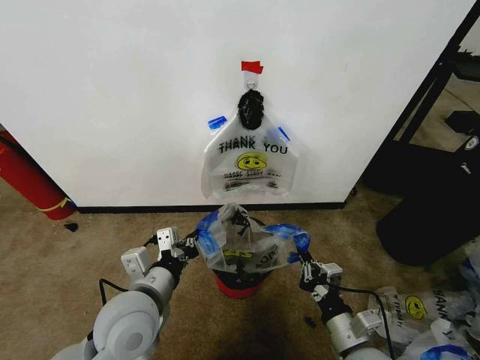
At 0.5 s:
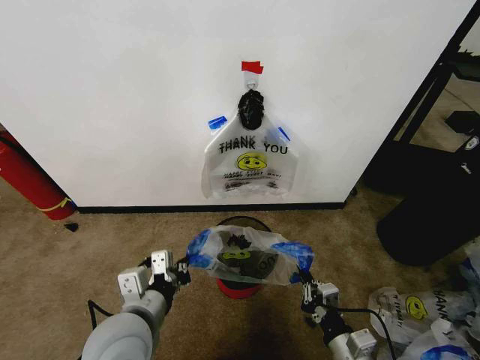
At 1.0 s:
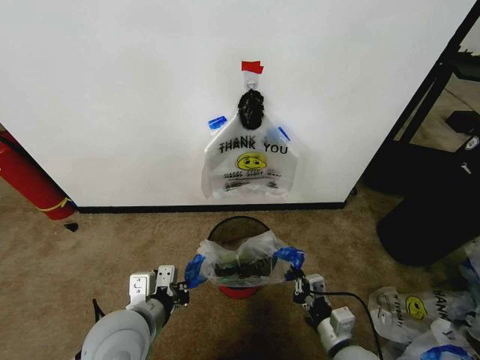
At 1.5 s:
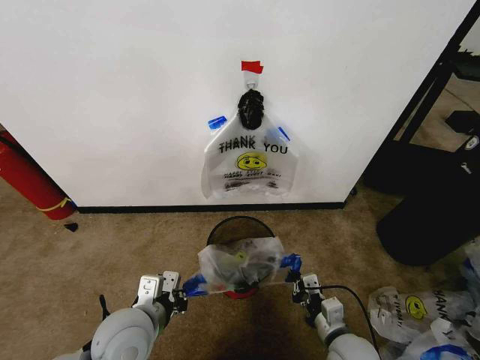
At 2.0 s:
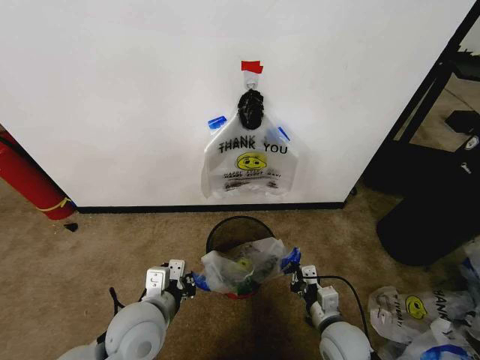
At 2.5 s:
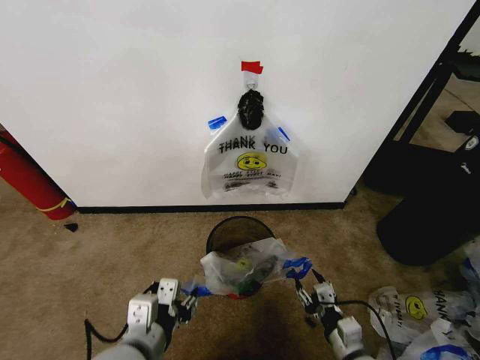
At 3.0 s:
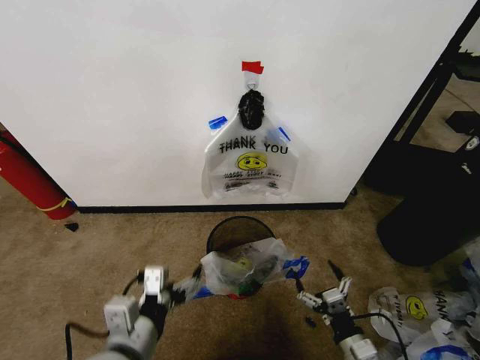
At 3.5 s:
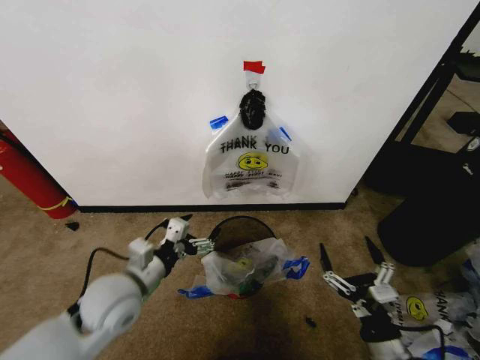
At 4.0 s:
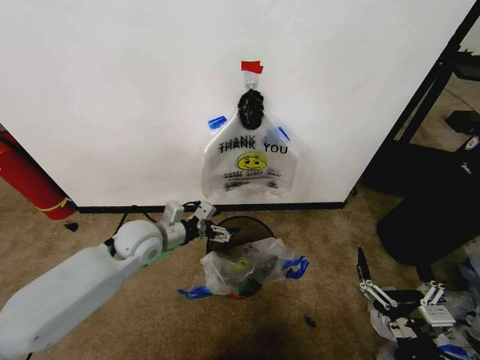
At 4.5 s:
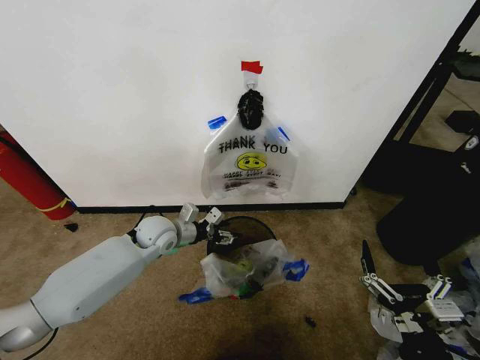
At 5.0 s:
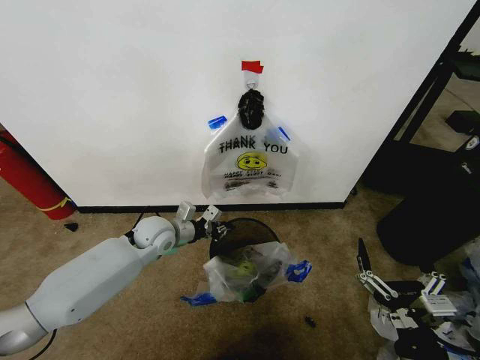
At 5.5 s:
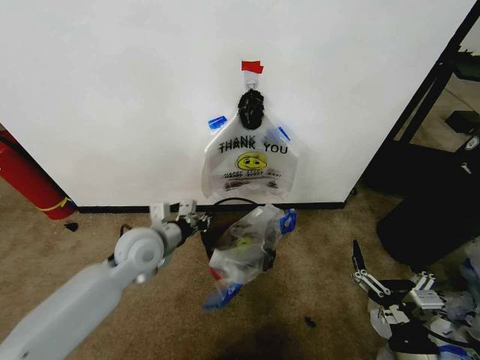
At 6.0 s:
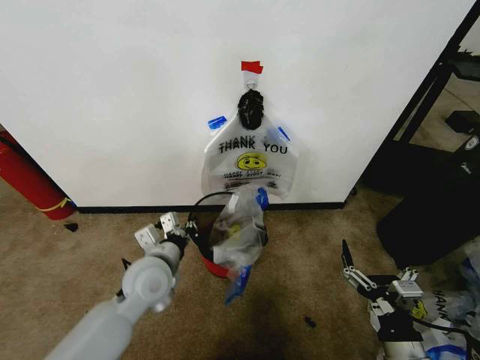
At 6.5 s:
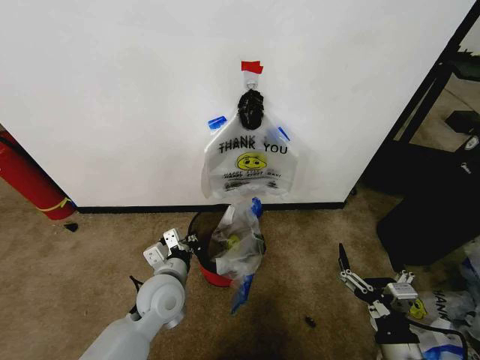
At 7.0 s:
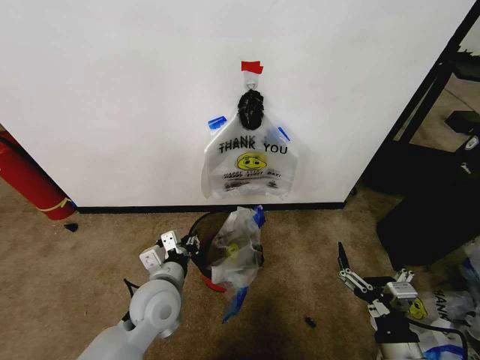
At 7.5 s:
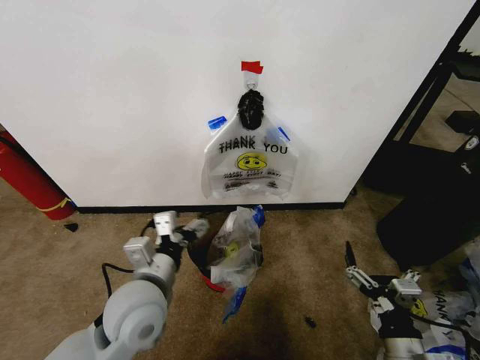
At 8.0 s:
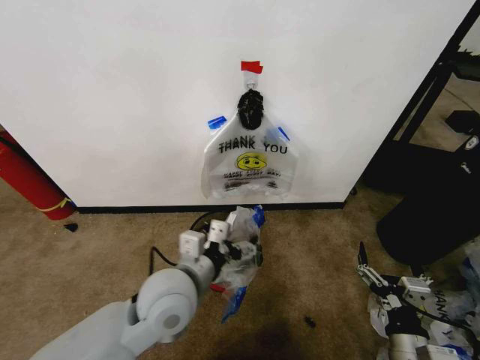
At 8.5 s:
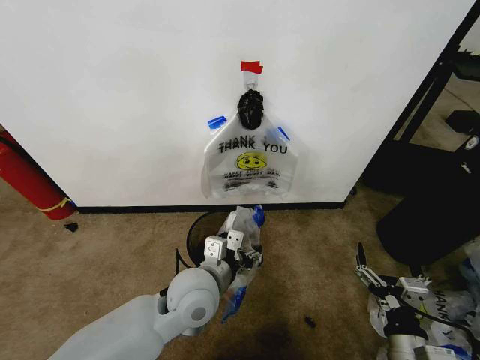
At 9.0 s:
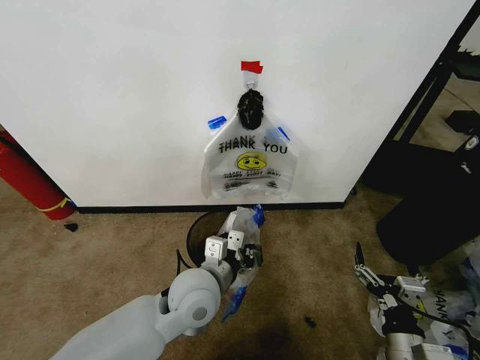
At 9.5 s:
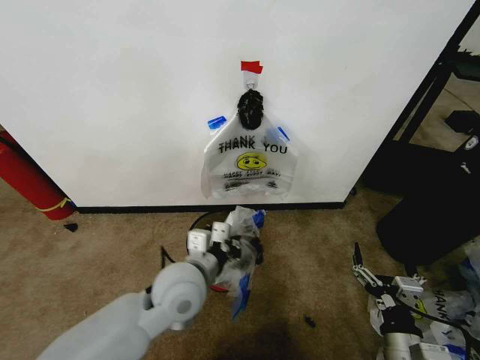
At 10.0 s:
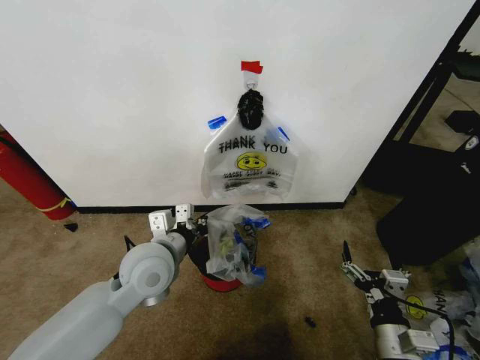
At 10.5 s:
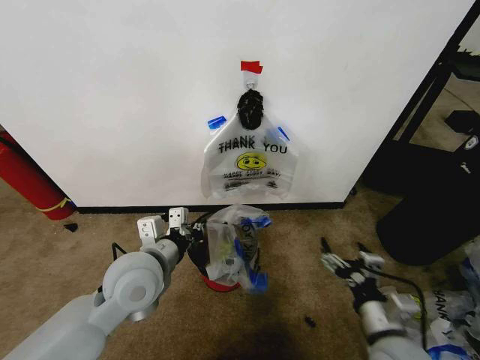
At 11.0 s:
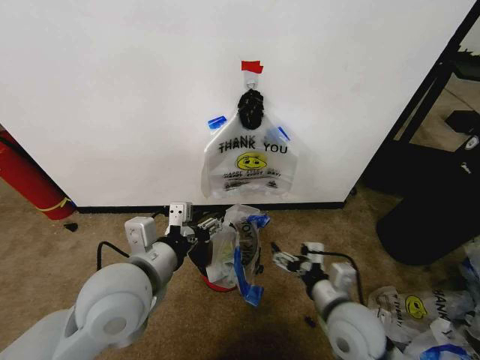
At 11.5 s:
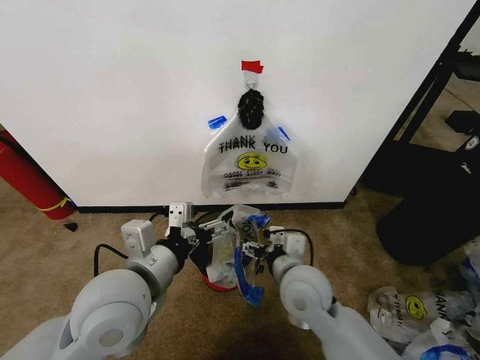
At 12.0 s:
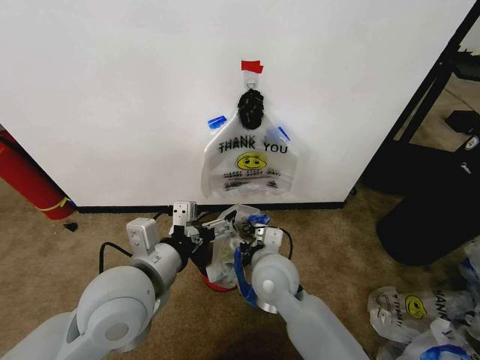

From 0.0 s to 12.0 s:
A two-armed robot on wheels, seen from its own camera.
Task of the whole recording: Pick up the garbage bag from the wall and place it over the trash bin.
From 0.0 s to 2.0 s: The right gripper shifts about 10 cm downward and forward; the left gripper is displaced downward by approximately 5 cm.
From 2.0 s to 4.0 s: The left gripper heads forward, covering roughly 15 cm, and opens its fingers. Meanwhile the right gripper is displaced backward, upward and to the right by roughly 20 cm, and opens up.
From 4.0 s to 6.0 s: The left gripper goes roughly 5 cm backward, and closes its fingers.
From 6.0 s to 8.0 s: The left gripper goes roughly 10 cm to the right, upward and backward, and opens up.
From 8.0 s to 10.0 s: The left gripper shifts some 10 cm forward and to the left, and closes.
From 10.0 s to 12.0 s: The left gripper goes some 10 cm backward and upward, and opens. Meanwhile the right gripper shifts some 30 cm to the left and forward.

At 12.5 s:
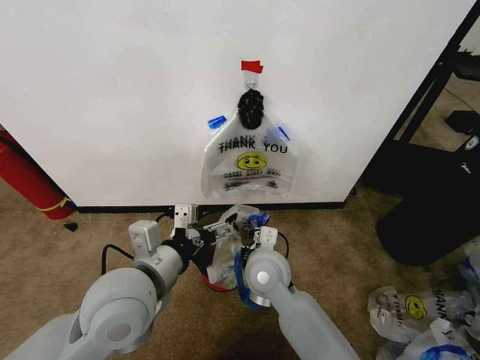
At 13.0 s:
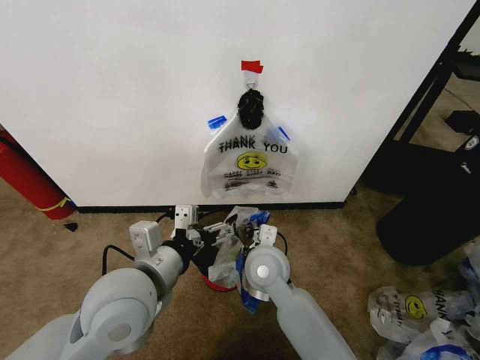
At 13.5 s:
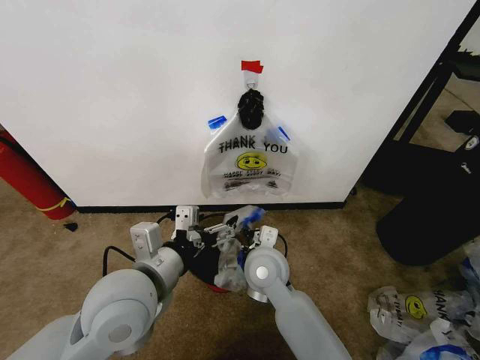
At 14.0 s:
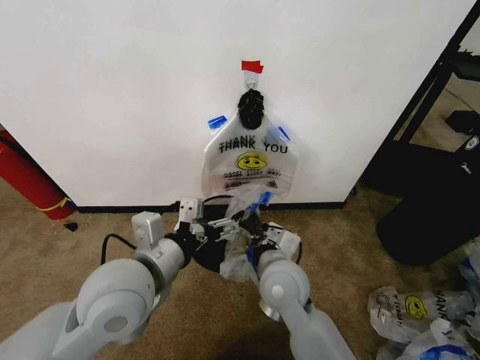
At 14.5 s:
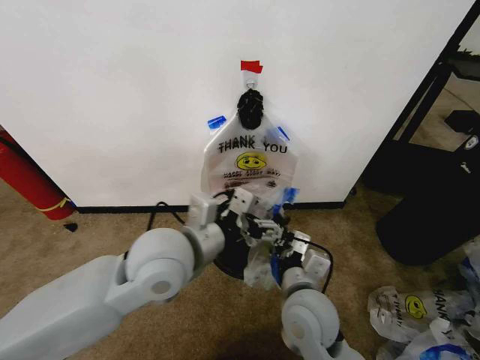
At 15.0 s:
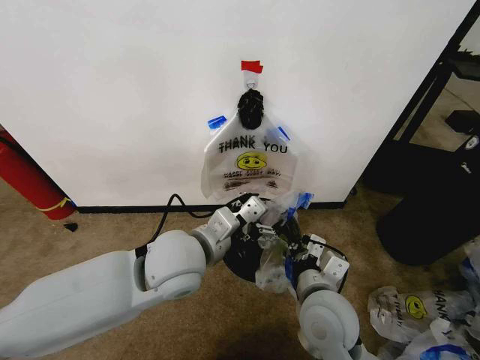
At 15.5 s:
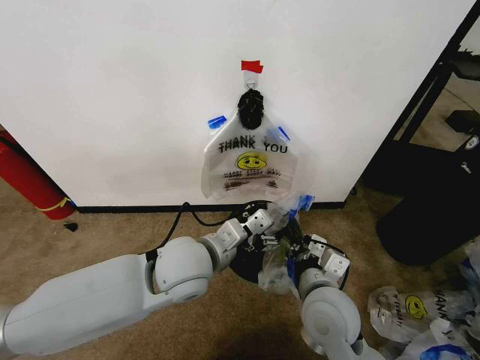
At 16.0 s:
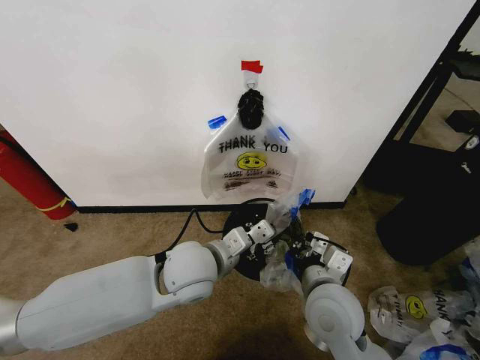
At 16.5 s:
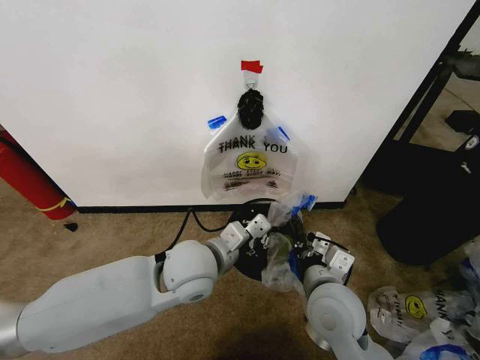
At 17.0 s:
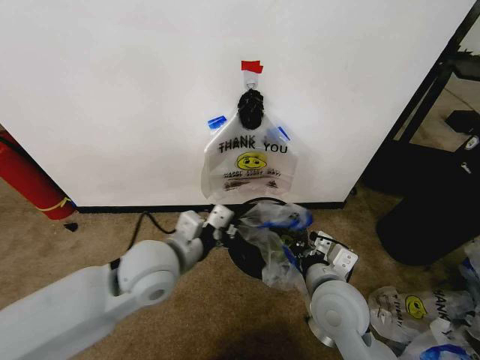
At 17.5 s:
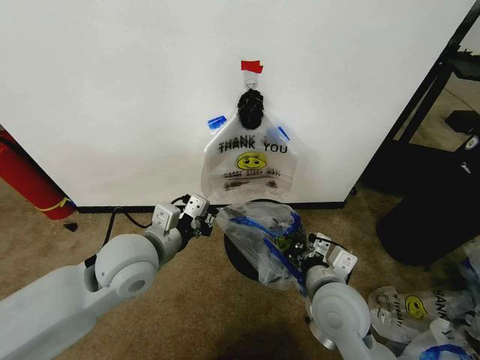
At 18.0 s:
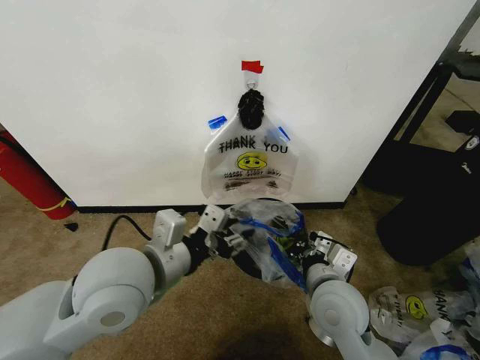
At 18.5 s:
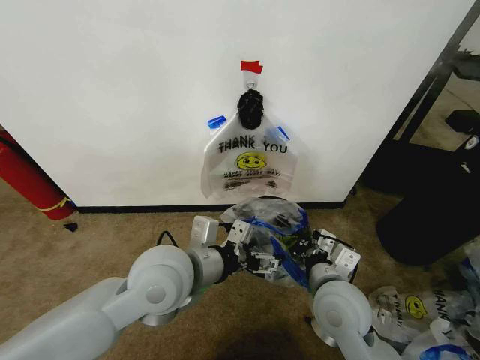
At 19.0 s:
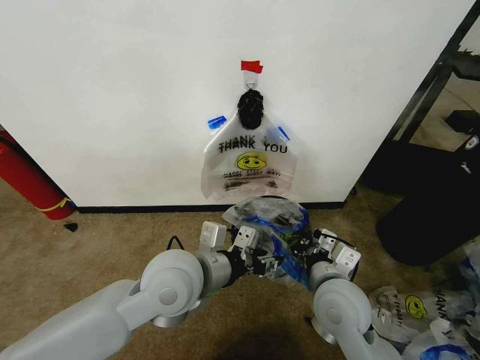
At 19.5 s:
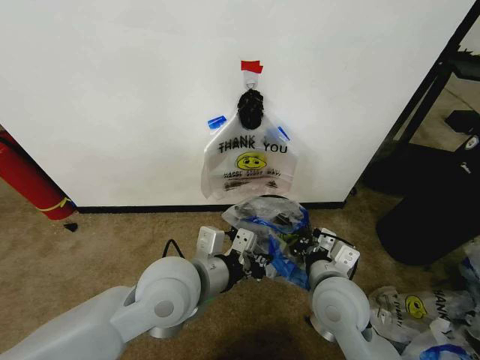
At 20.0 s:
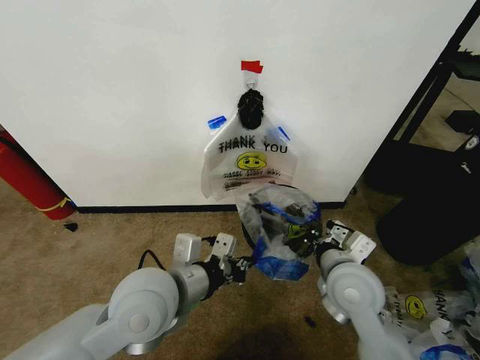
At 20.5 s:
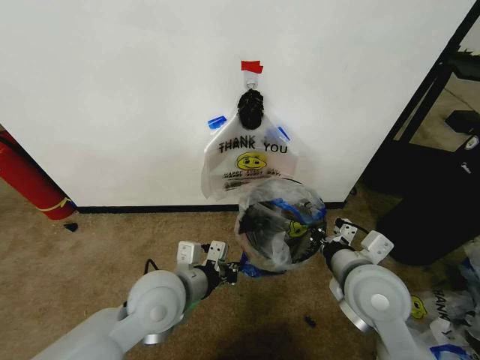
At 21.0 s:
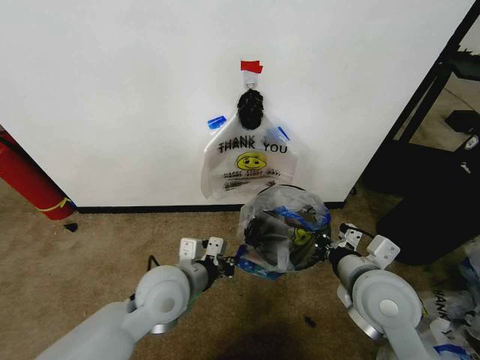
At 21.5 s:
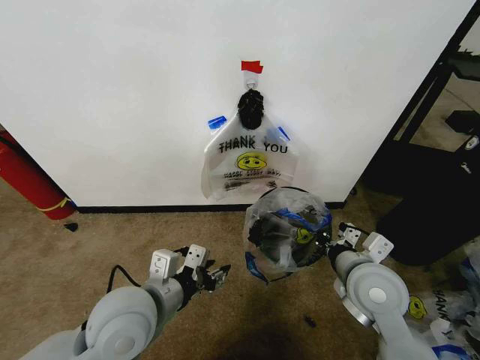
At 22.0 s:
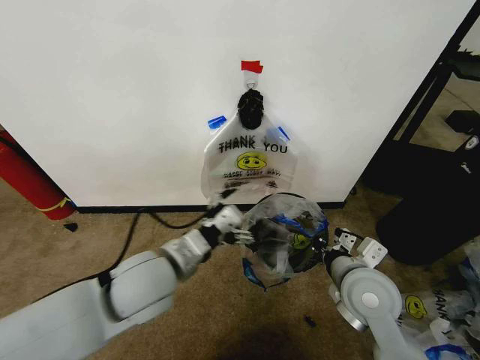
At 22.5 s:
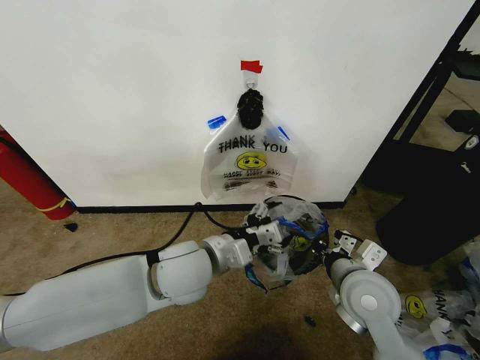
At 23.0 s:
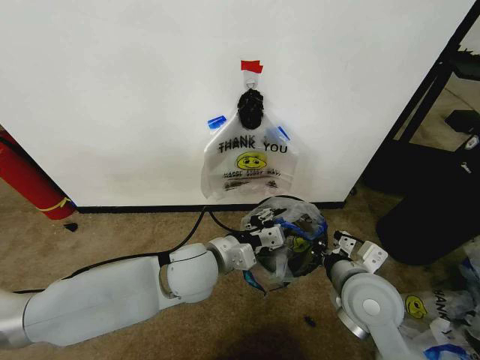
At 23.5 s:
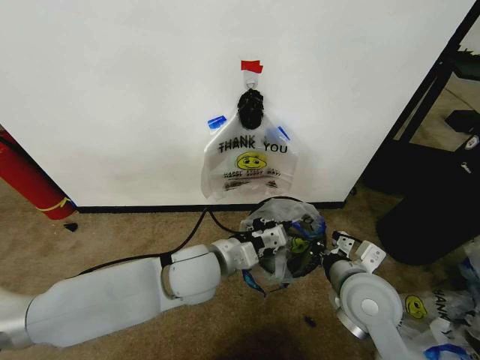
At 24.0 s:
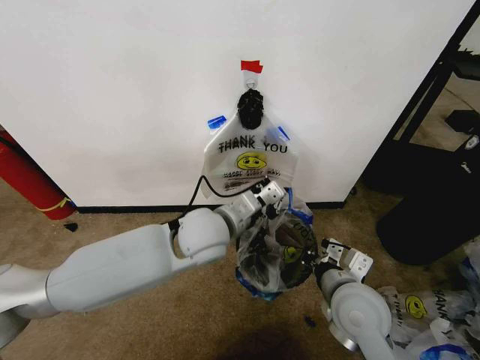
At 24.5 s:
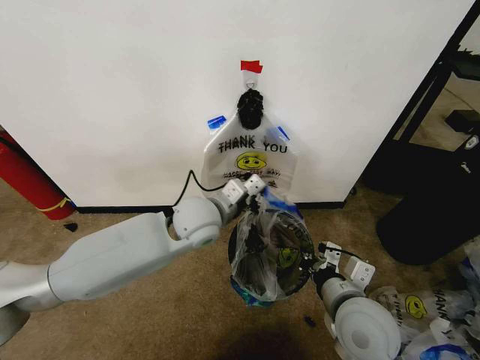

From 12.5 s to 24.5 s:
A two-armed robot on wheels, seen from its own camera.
Task of the whole recording: Pick up the garbage bag from the wall and place it over the trash bin.
From 12.5 s to 14.5 s: The right gripper shifts approximately 10 cm backward and to the right, and closes its fingers. The left gripper travels forward and to the right by approximately 5 cm.
From 14.5 s to 16.5 s: The left gripper travels downward by roughly 10 cm, and closes its fingers.
From 16.5 s to 18.5 s: The left gripper goes approximately 5 cm upward, reaches approximately 10 cm to the left, then returns, and opens its fingers.
From 18.5 s to 20.5 s: The right gripper ends up approximately 5 cm from where it was. The left gripper moves downward, approximately 5 cm, and closes its fingers.
From 20.5 s to 22.5 s: The left gripper changes place by roughly 5 cm, and opens up.
From 22.5 s to 24.5 s: The left gripper shifts roughly 10 cm forward, and closes its fingers, while the right gripper moves about 5 cm.

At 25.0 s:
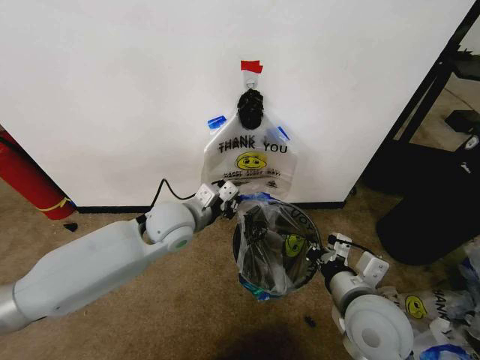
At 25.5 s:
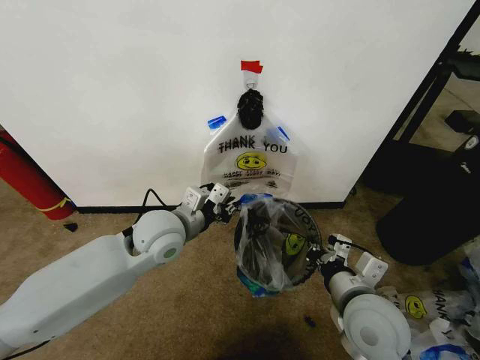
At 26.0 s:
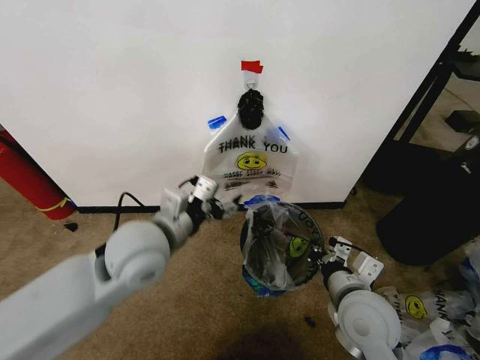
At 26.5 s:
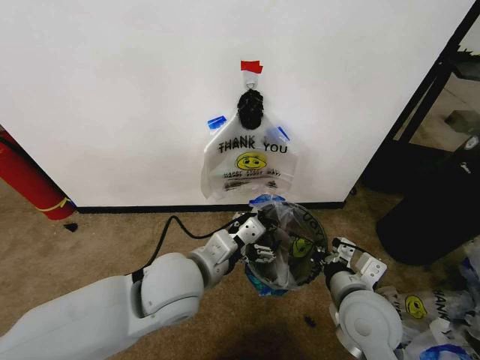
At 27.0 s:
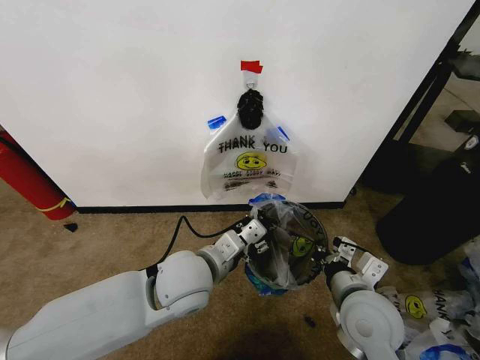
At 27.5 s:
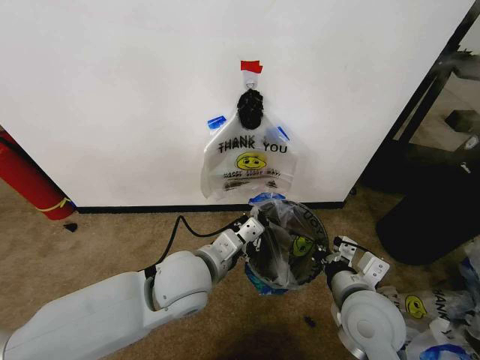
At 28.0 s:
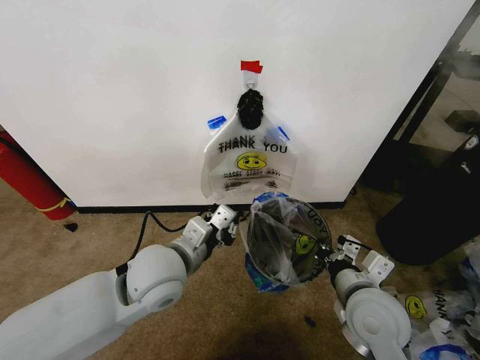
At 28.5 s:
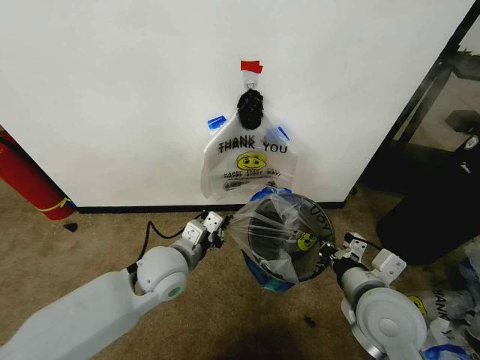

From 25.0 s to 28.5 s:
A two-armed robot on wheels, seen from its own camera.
Task of the whole recording: Pick up the garbage bag from the wall and place it over the trash bin.
From 25.0 s to 27.0 s: The left gripper is displaced backward by about 10 cm, and opens its fingers.
From 27.0 s to 28.5 s: The left gripper travels to the left by about 5 cm, and closes its fingers.
